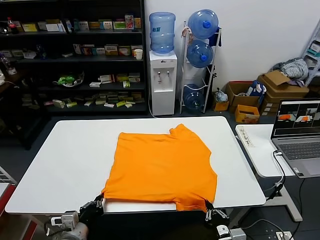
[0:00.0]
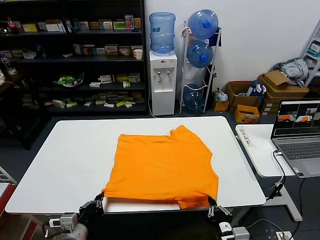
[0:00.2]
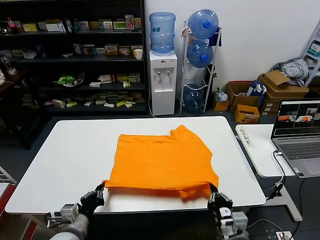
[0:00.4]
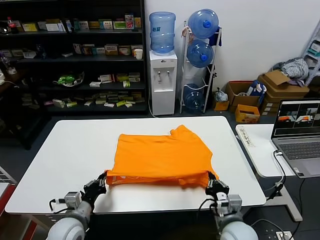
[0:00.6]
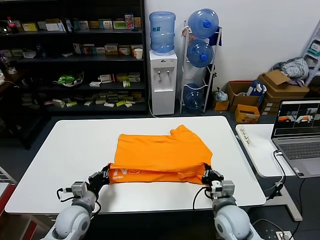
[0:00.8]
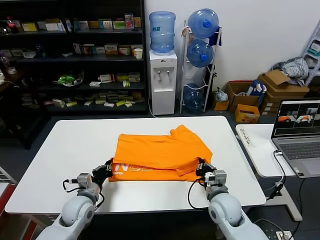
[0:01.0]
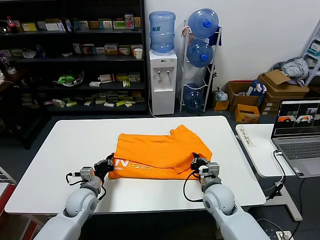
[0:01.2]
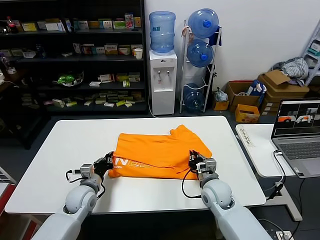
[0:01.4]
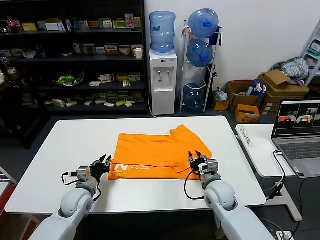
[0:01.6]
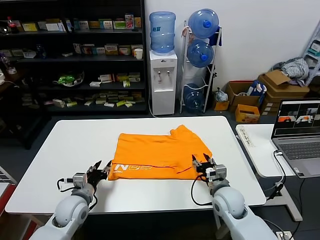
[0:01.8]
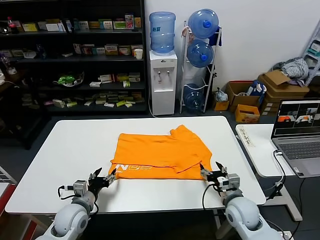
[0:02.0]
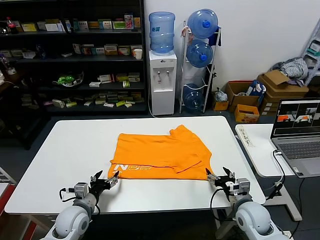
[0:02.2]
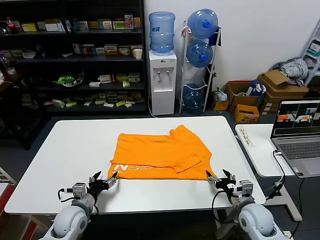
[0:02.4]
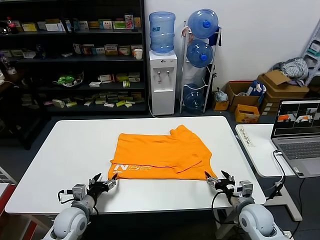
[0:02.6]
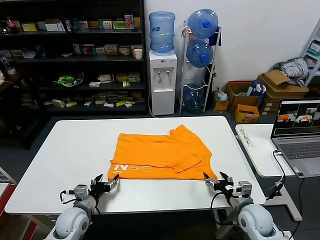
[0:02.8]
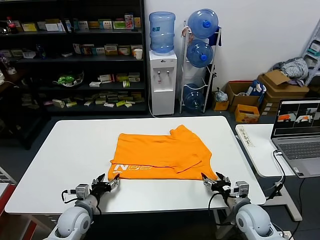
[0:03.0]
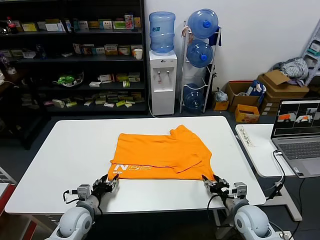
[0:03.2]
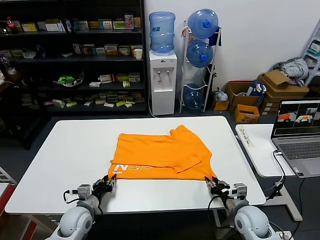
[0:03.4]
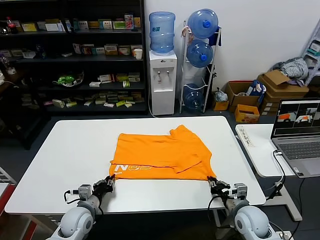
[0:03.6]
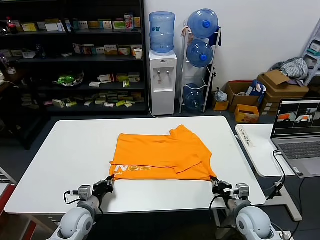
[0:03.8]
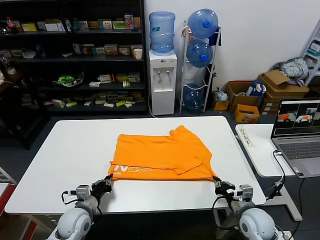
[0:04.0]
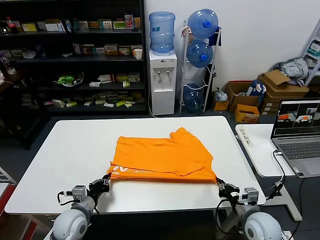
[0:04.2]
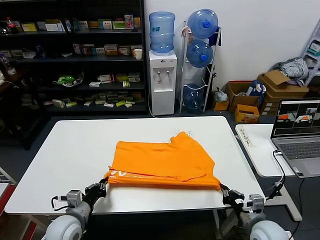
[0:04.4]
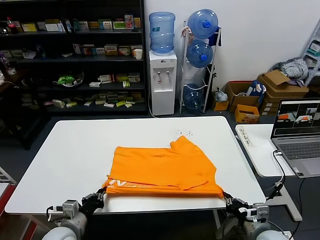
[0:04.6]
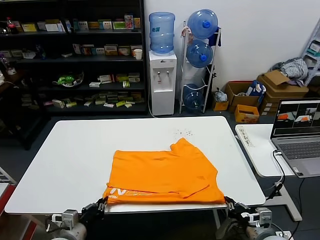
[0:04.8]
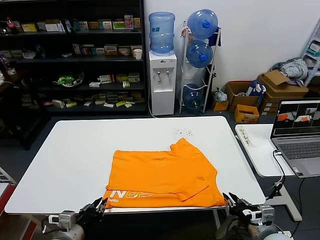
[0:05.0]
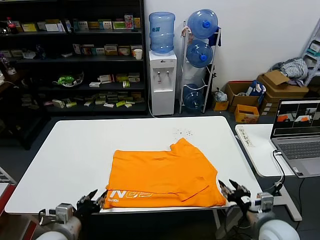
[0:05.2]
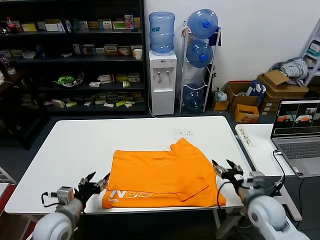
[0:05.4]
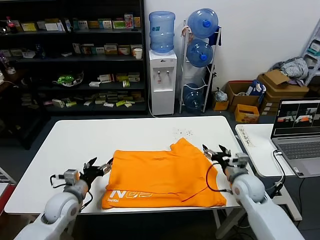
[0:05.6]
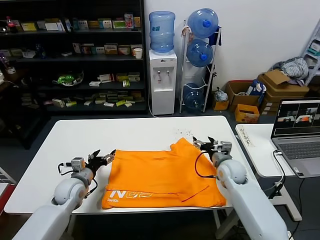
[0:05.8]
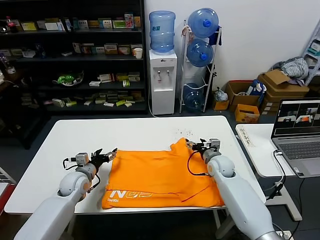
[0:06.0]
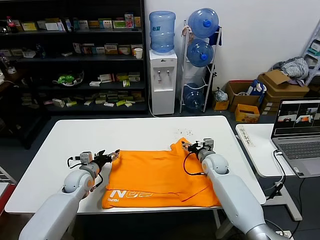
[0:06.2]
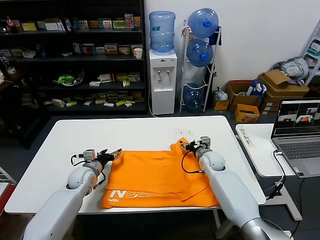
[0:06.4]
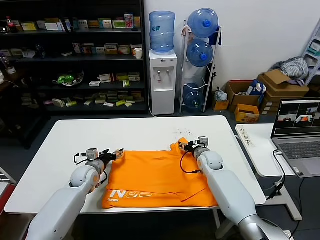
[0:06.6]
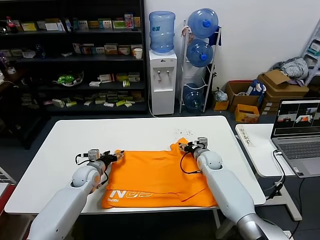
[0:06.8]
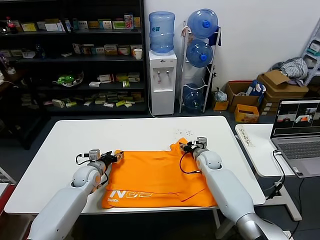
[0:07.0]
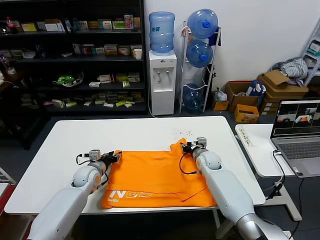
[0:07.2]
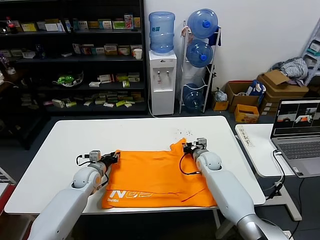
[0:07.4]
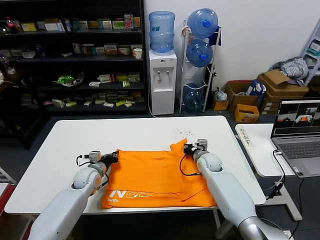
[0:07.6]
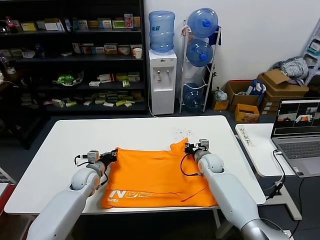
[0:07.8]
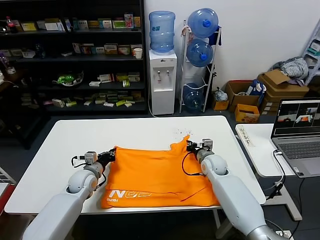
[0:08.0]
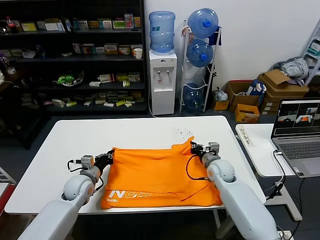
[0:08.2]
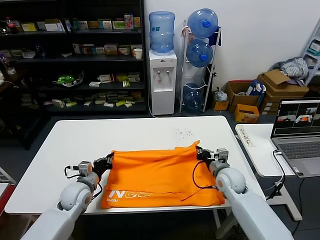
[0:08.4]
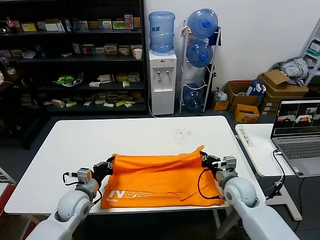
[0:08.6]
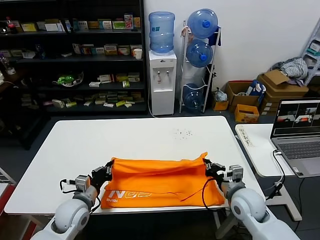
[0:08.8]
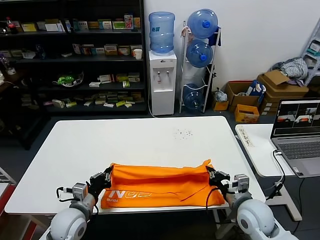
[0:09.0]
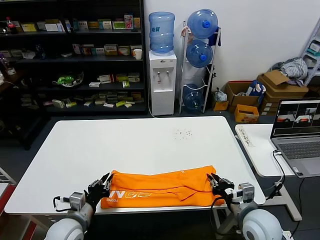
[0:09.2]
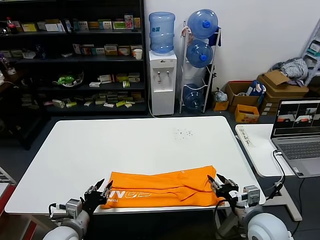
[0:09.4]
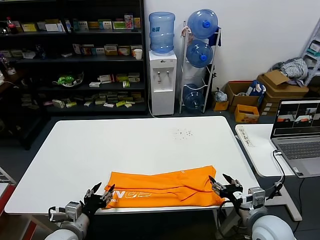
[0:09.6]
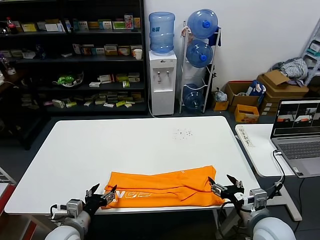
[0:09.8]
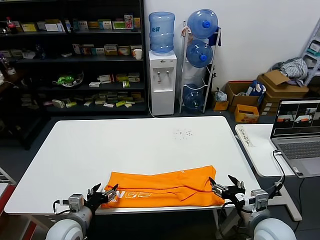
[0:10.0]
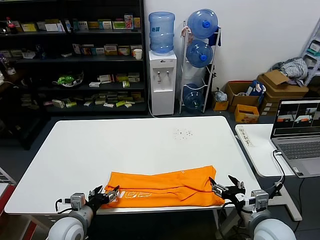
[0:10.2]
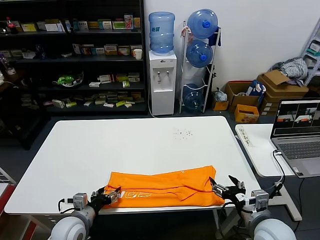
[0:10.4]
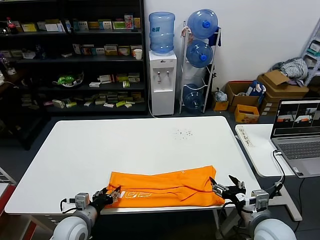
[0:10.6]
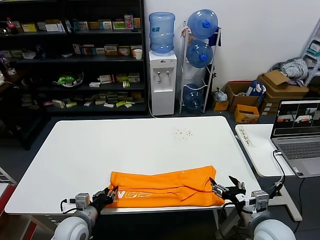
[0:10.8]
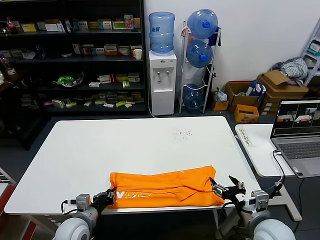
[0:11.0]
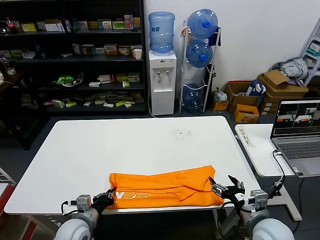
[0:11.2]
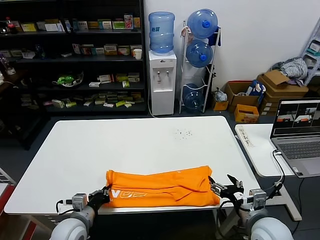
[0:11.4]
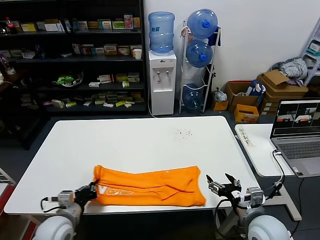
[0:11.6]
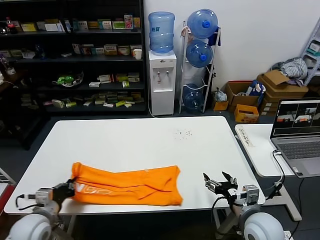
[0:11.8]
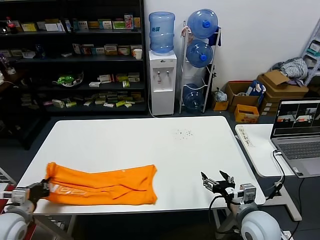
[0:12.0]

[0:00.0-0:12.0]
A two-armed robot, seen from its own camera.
Task of the whole recording: fold and organize the clothes.
Step, 0:00.0 to 0:01.4: use both grippers to drag the lower edge of the fabric forward and fold it over the upper edge.
Step, 0:01.6 to 0:05.0: Drag the clothes downward with both gripper.
Step, 0:05.2 to 0:07.6: use both grippers simultaneously to clamp the upper edge of the clothing fabric.
Step, 0:08.0 to 0:09.2: use both grippers to drag the upper edge of the fabric backward and fold it over the lower edge.
Step, 0:09.6 to 0:11.0: use the left gripper to clamp the left edge of the fabric.
0:00.0 to 0:01.6: The two grippers go about 20 cm forward. The left gripper opens up, while the right gripper opens its fingers.
0:01.6 to 0:03.0: The left gripper travels backward by approximately 5 cm, and opens; the right gripper heads to the right and backward, covering some 10 cm, and opens.
0:03.0 to 0:04.4: The left gripper moves approximately 5 cm, and closes its fingers. Meanwhile the right gripper heads backward, covering roughly 5 cm, and closes.
0:04.4 to 0:06.0: The left gripper is displaced forward by about 15 cm, and opens up. Meanwhile the right gripper moves forward, roughly 25 cm, and opens up.
0:06.0 to 0:07.6: The left gripper moves some 5 cm, and closes its fingers, while the right gripper closes up.
0:07.6 to 0:09.0: The grippers both shift backward by approximately 20 cm.
0:09.0 to 0:10.4: The right gripper travels backward by some 5 cm, and opens its fingers. The left gripper opens up.
0:10.4 to 0:12.0: The left gripper goes about 15 cm to the left and upward, and closes its fingers.

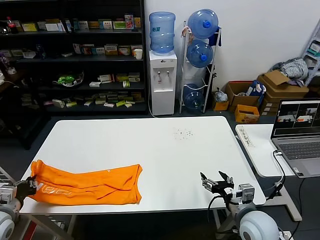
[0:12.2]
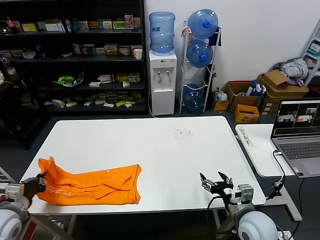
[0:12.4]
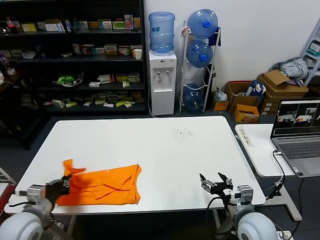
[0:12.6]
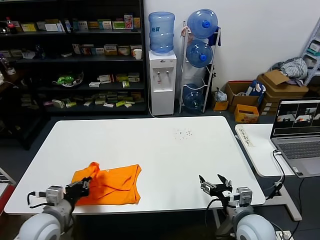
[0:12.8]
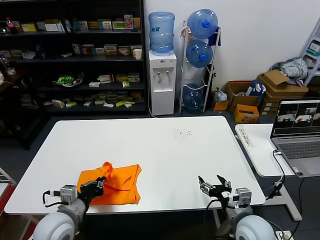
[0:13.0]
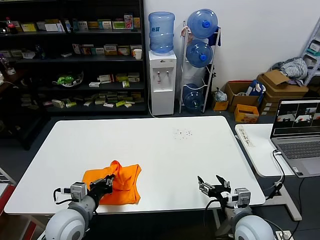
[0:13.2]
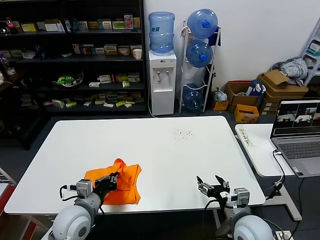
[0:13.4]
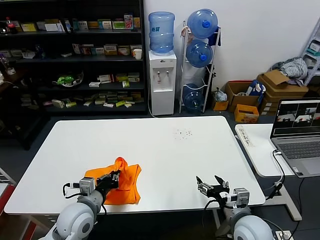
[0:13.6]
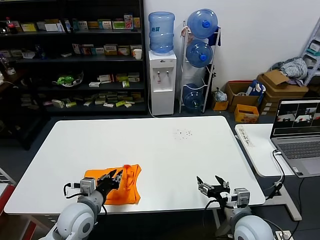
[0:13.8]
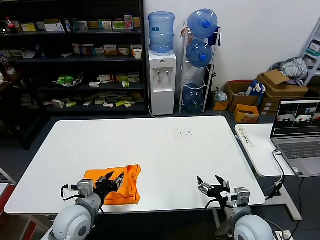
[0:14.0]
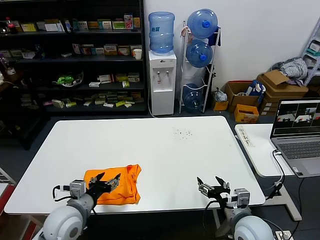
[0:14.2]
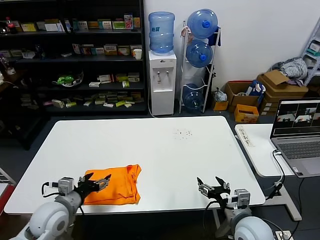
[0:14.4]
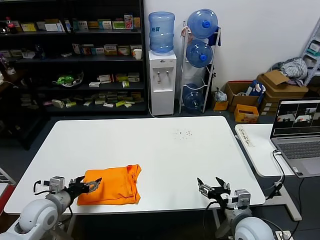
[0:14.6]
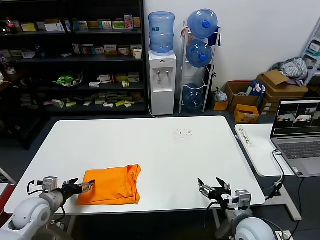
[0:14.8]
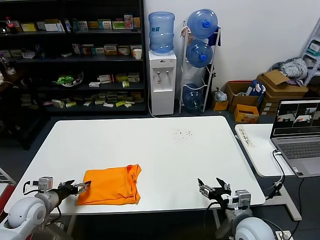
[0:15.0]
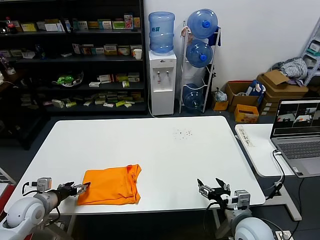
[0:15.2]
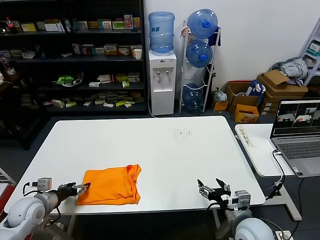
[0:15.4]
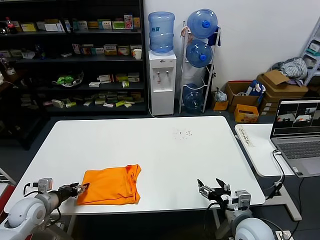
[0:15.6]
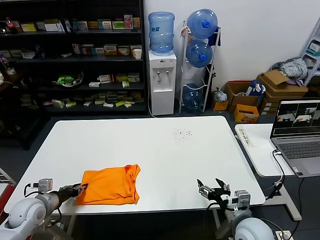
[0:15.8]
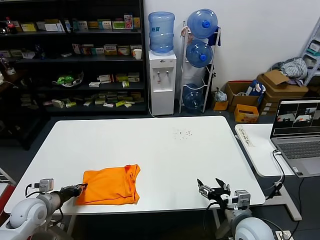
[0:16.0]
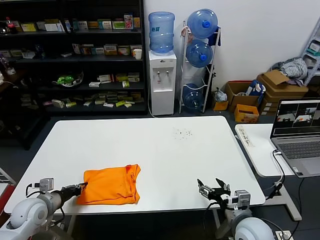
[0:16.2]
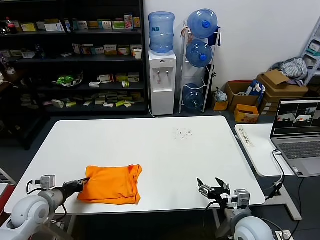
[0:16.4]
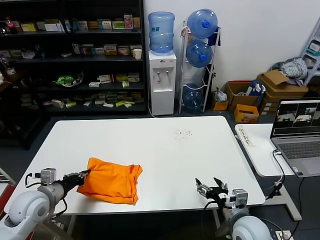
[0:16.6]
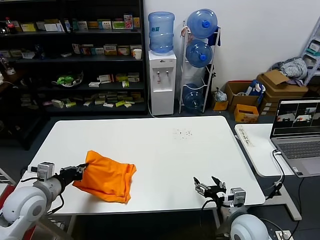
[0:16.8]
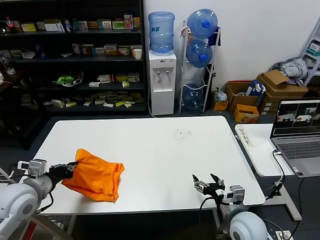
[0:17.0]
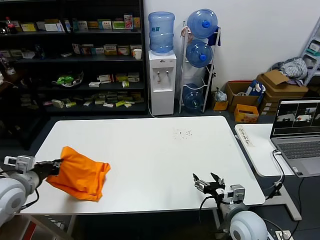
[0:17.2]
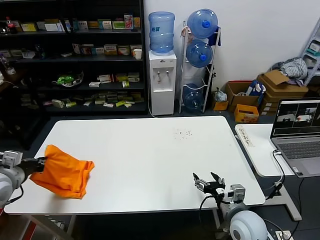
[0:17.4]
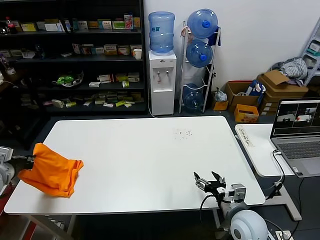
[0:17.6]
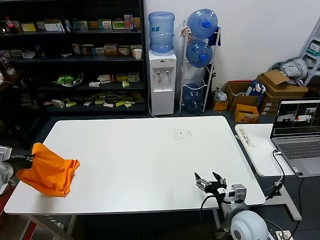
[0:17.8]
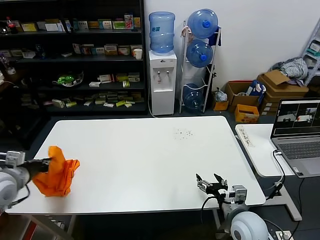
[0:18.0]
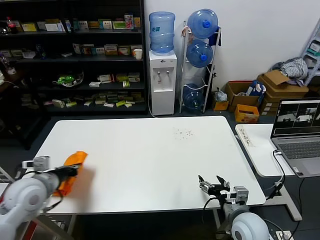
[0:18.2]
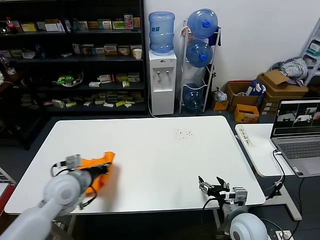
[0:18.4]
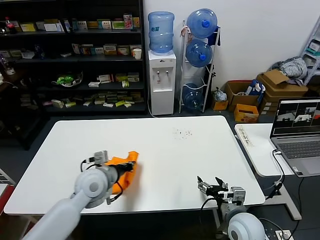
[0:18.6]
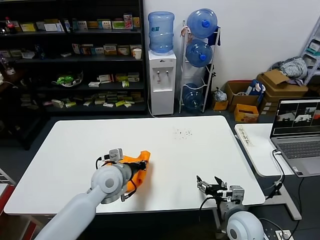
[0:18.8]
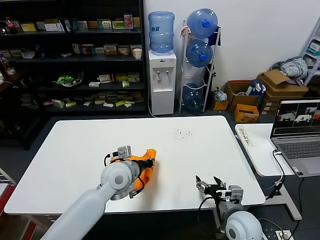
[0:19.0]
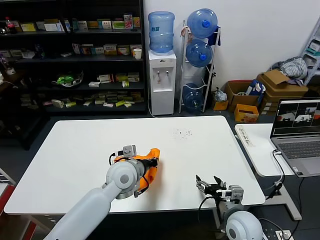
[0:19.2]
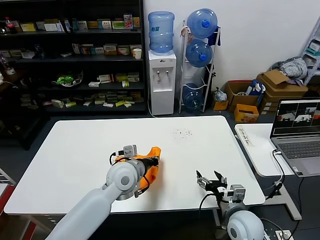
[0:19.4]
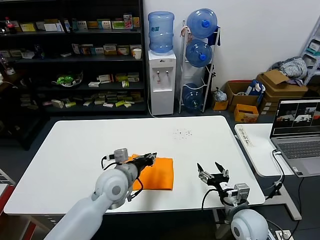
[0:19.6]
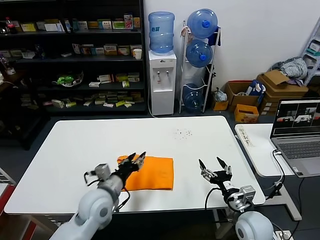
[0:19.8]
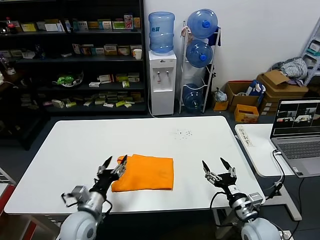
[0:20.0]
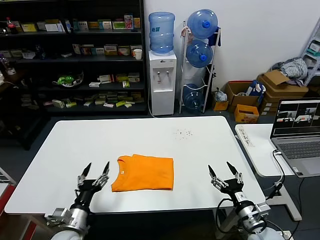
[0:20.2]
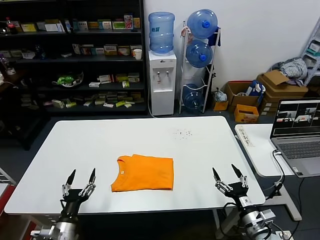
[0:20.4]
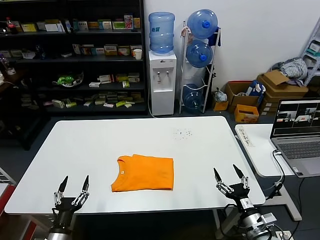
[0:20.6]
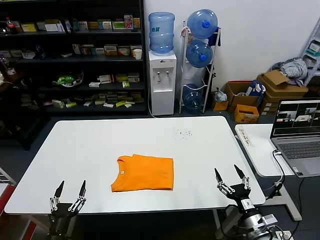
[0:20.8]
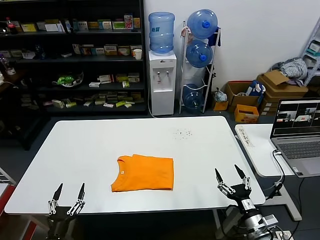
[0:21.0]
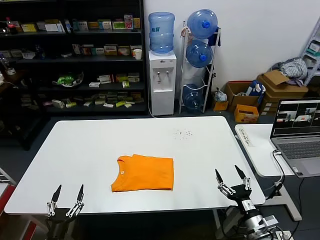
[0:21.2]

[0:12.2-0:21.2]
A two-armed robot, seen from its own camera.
Task of the whole recording: fold and organize the clothes.
Step, 0:12.2 to 0:14.0: use the left gripper to drag the left edge of the fabric to the left and folds it over the right edge.
Step, 0:14.2 to 0:19.6: Flip the folded clothes over with left gripper.
0:12.2 to 0:13.8: The left gripper goes roughly 25 cm to the right.
0:13.8 to 0:15.2: The left gripper is displaced to the left by roughly 20 cm, and opens its fingers.
0:15.2 to 0:16.6: The left gripper ends up about 5 cm from where it was, and closes up.
0:16.6 to 0:18.2: The left gripper is displaced upward by some 5 cm, and moves about 10 cm to the left and comes back.
0:18.2 to 0:19.8: The left gripper travels to the right by about 20 cm, and opens its fingers.
0:19.8 to 0:21.2: The right gripper is displaced backward and to the right by approximately 10 cm, while the left gripper travels backward, to the left and downward by approximately 30 cm, and opens its fingers.
